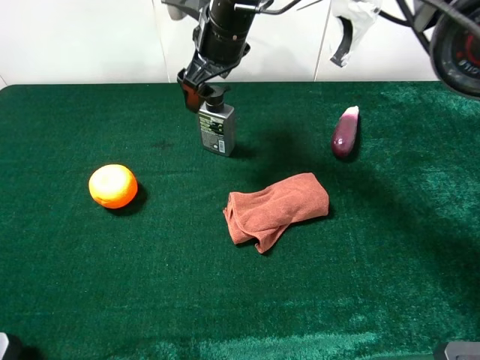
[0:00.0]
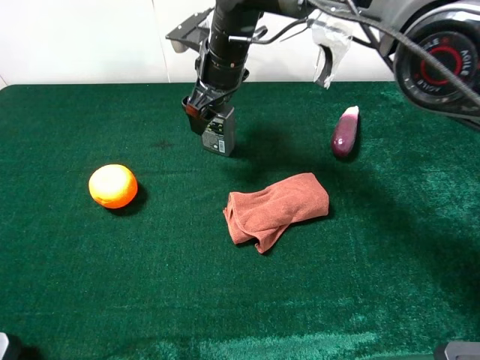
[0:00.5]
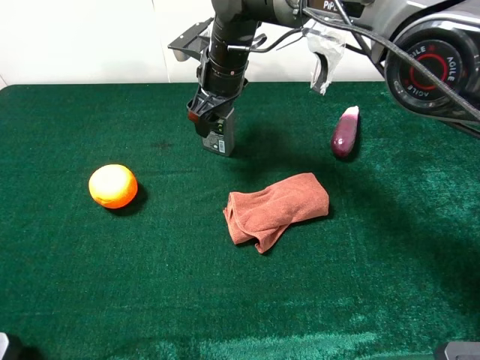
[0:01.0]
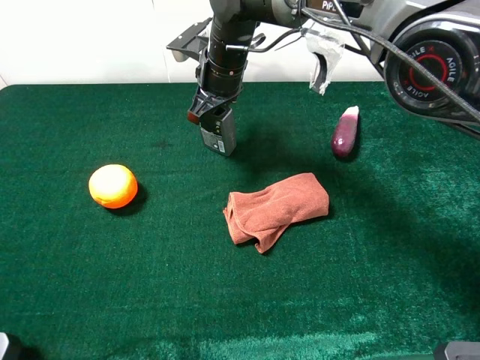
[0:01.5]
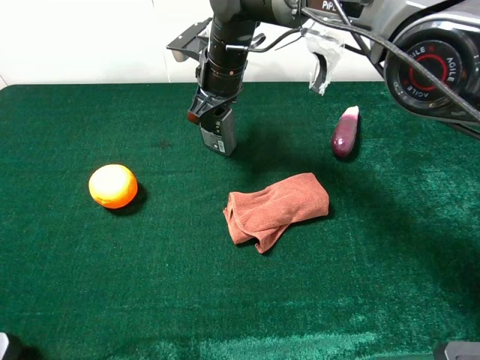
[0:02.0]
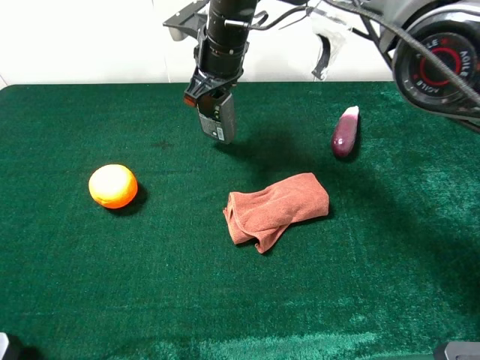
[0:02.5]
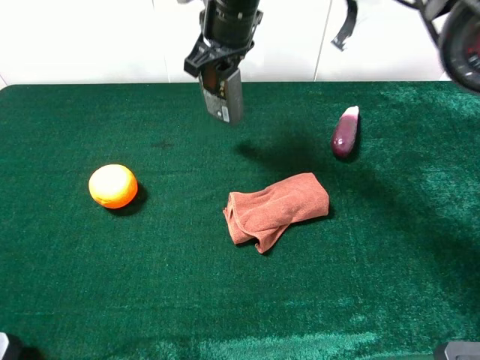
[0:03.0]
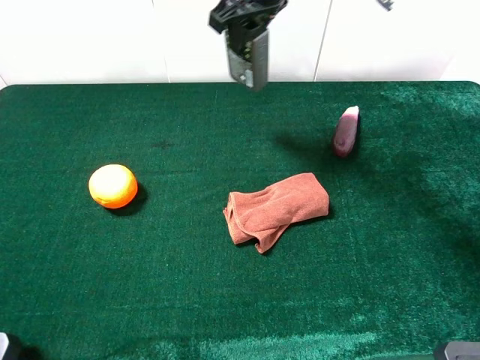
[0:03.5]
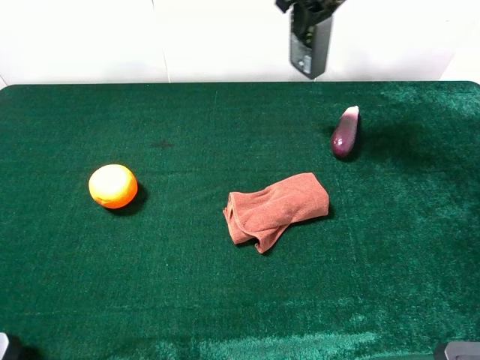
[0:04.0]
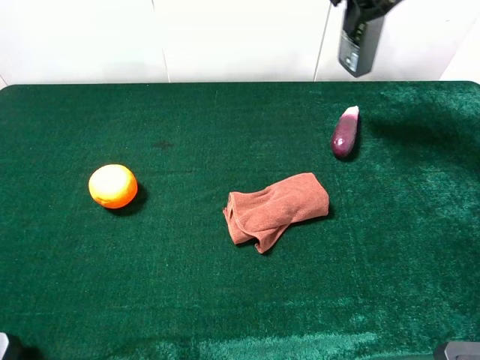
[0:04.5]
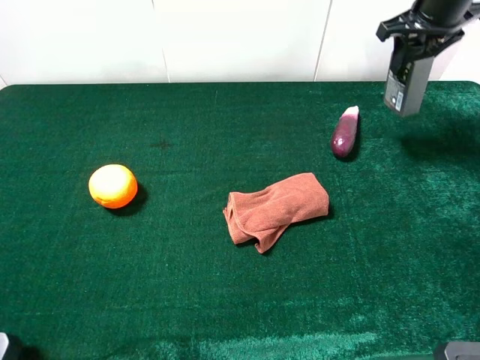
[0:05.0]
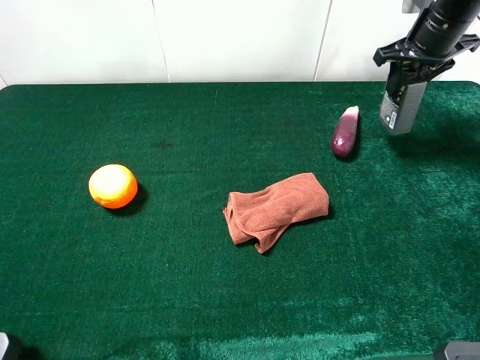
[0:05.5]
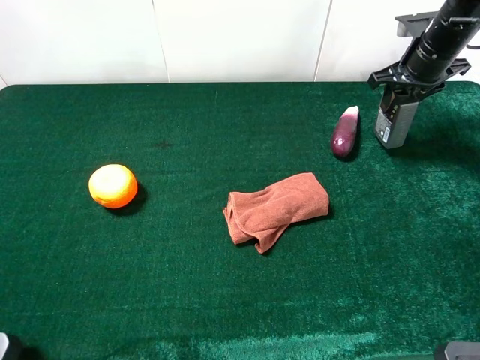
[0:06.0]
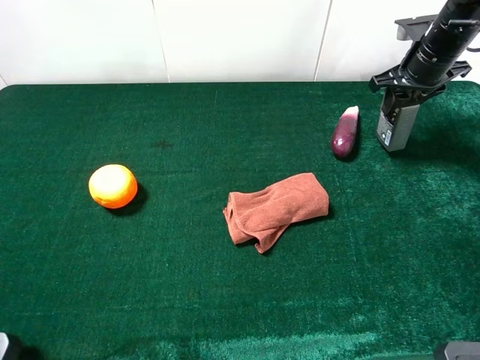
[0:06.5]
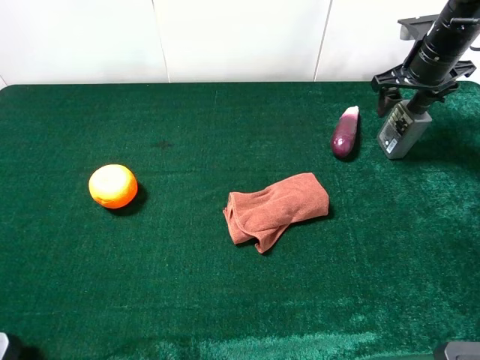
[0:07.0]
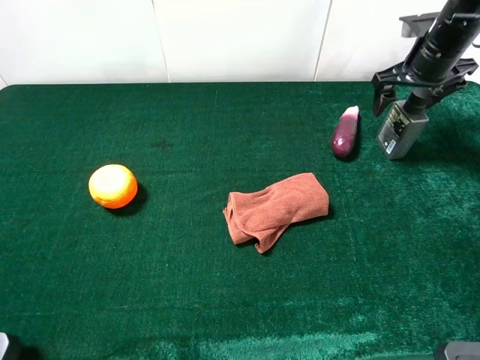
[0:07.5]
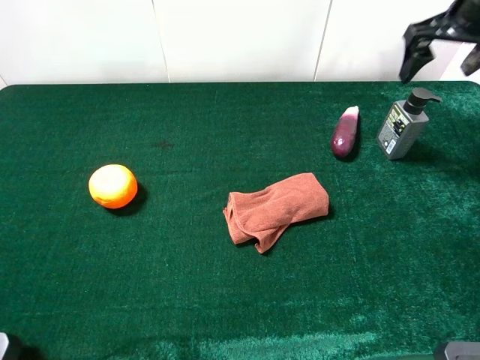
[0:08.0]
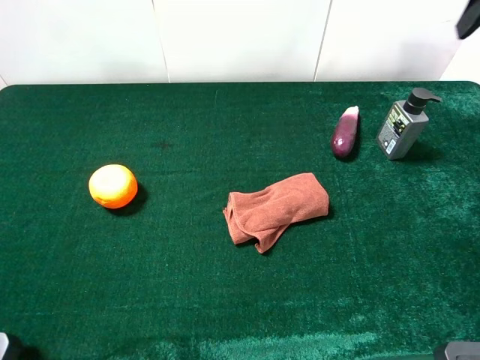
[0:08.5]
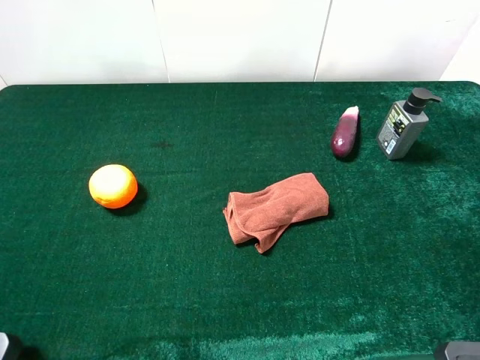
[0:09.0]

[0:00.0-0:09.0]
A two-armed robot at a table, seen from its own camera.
Task of the whole recording: the gripper move the object.
Step, 0:02.0 to 0:07.5: Place the hard facial cleanser on the table with the right gripper.
0:00.0 to 0:02.0: The right gripper travels downward by approximately 5 cm, and closes its fingers.
0:02.0 to 0:04.5: The right gripper heads to the right and upward, covering about 25 cm.
0:04.5 to 0:07.0: The right gripper goes about 15 cm downward and to the right, and opens up.
0:07.0 to 0:09.0: The right gripper goes about 35 cm backward and upward.

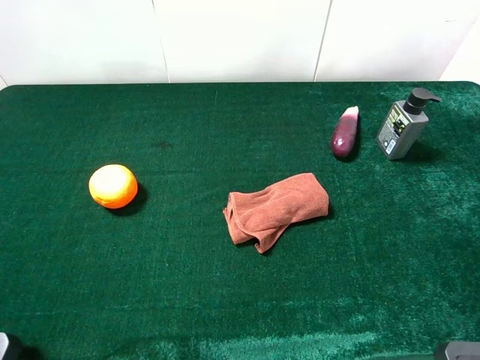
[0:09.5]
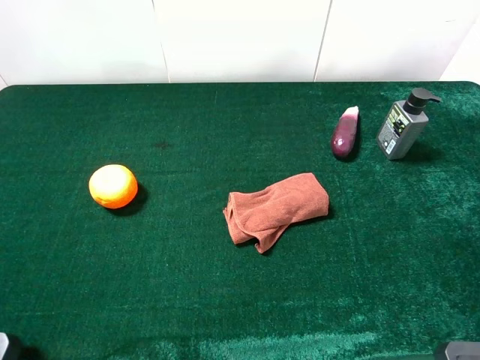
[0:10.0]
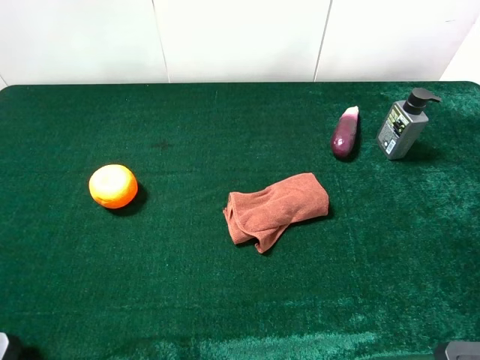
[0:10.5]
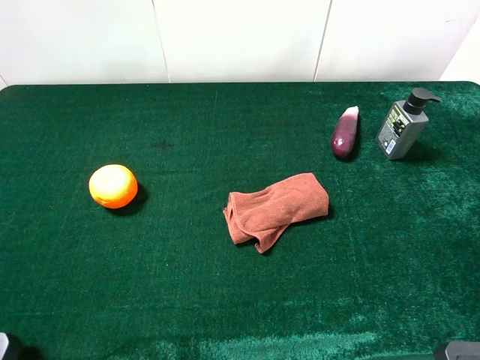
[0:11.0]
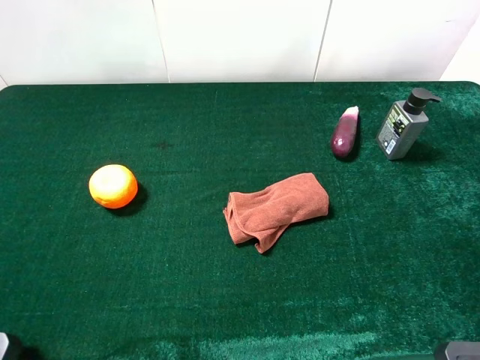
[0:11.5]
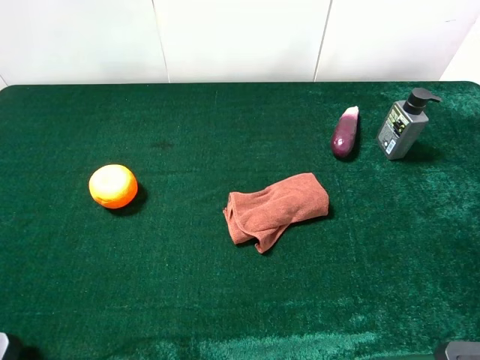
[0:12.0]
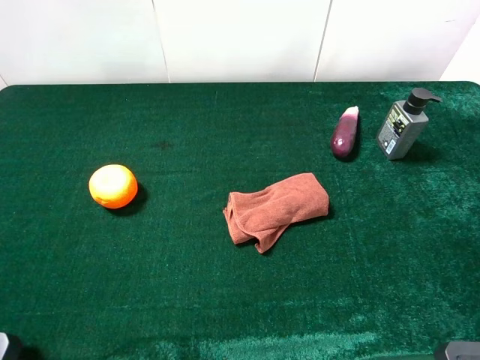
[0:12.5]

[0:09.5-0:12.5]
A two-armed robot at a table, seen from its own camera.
Task of the whole recording: the gripper move the object.
0:11.0 to 0:12.5: Both grippers stay put.

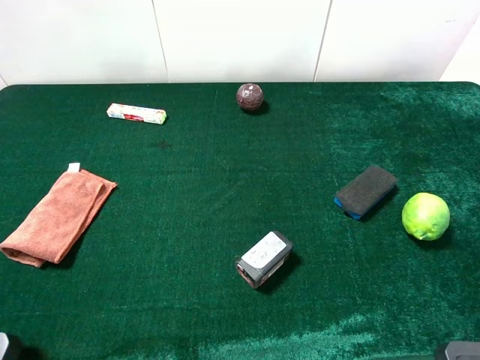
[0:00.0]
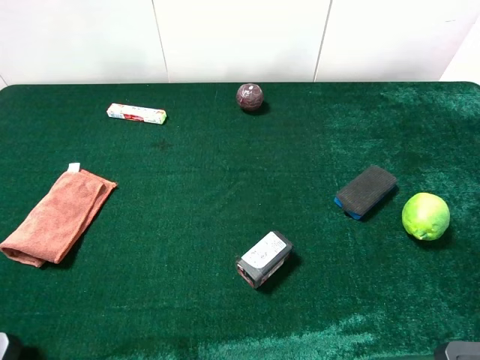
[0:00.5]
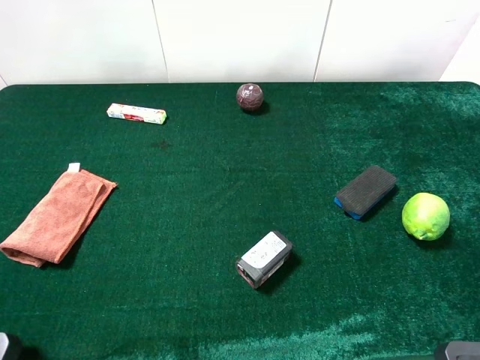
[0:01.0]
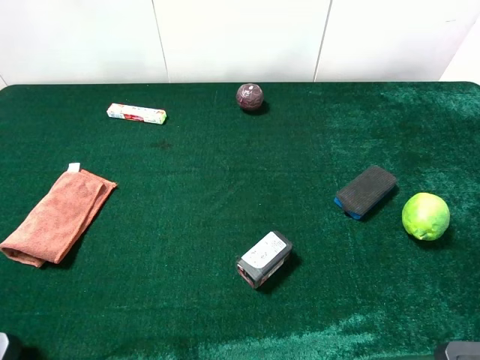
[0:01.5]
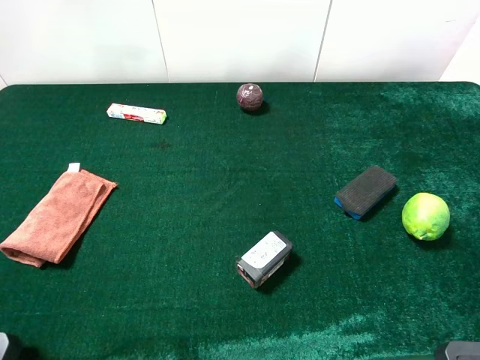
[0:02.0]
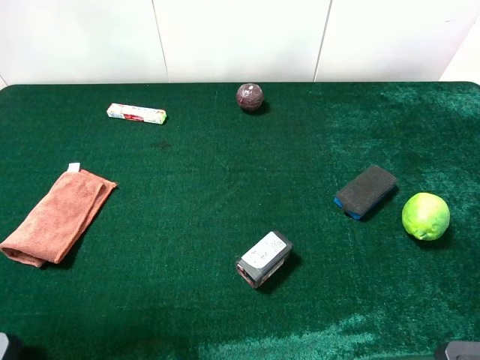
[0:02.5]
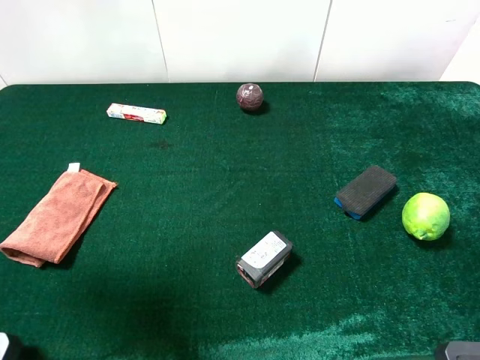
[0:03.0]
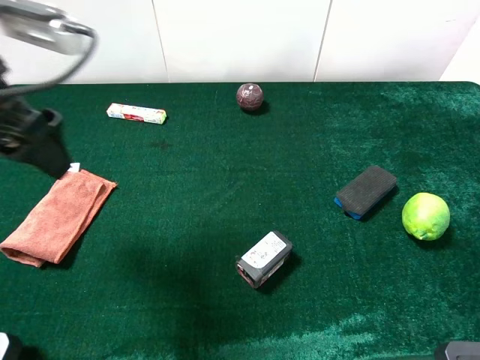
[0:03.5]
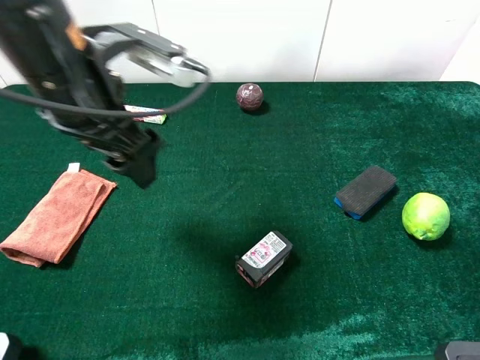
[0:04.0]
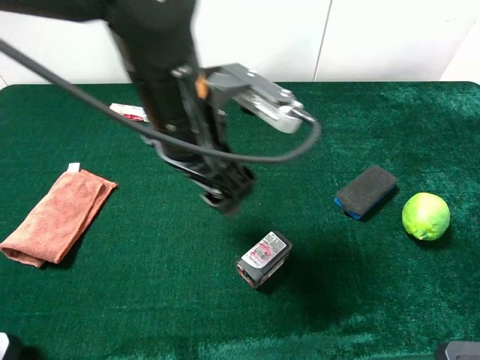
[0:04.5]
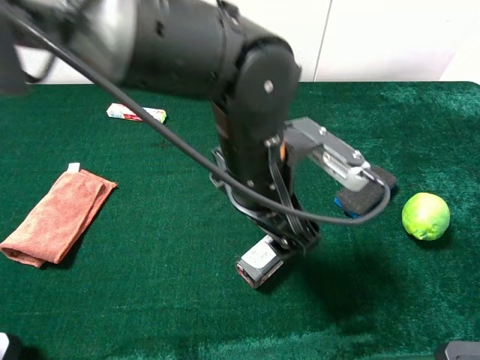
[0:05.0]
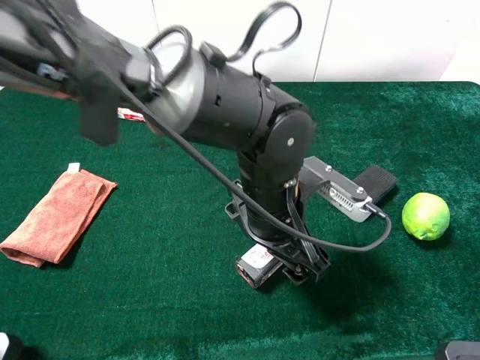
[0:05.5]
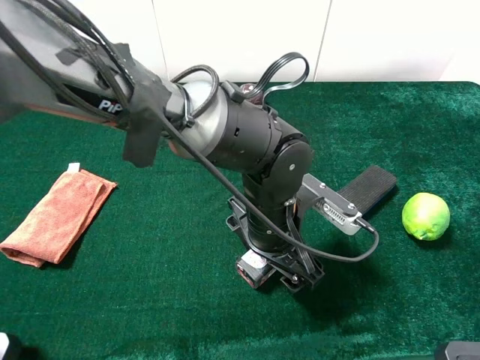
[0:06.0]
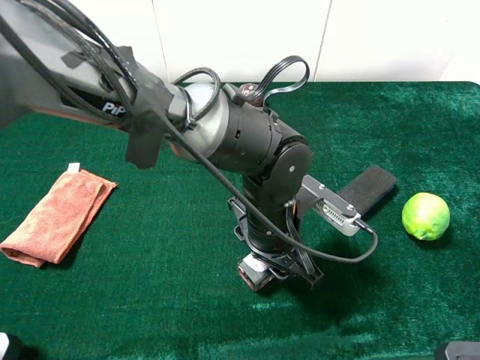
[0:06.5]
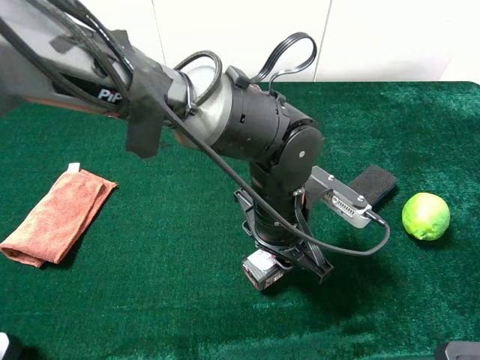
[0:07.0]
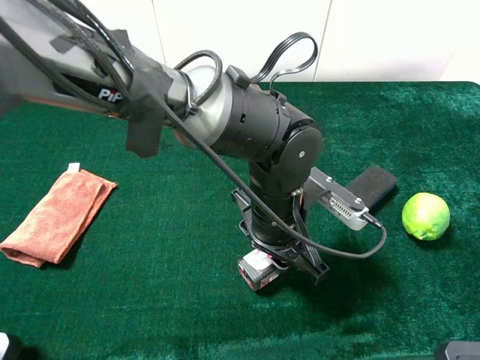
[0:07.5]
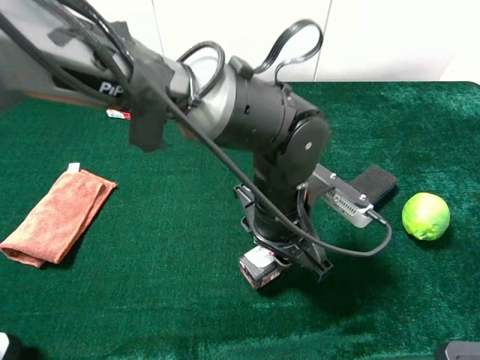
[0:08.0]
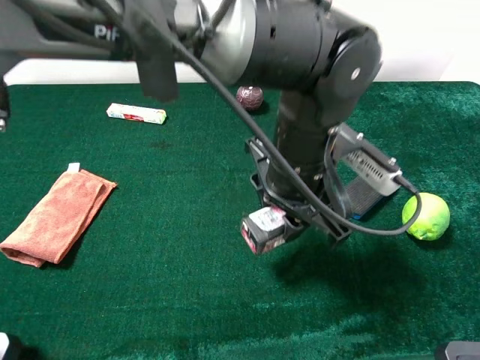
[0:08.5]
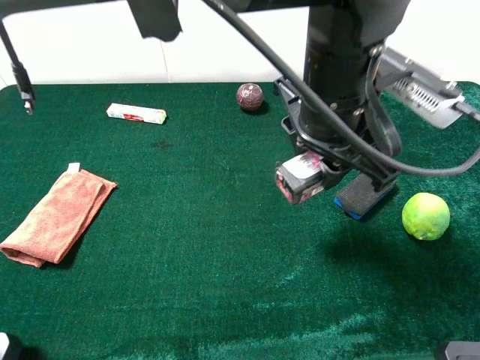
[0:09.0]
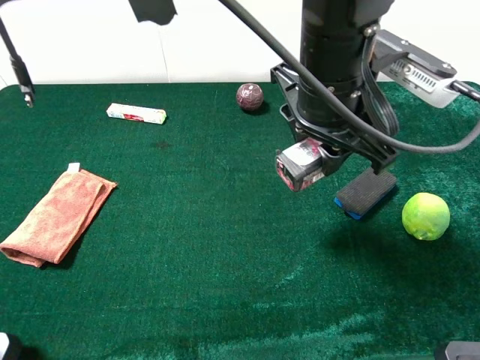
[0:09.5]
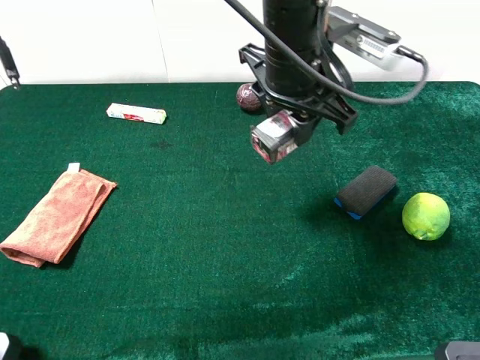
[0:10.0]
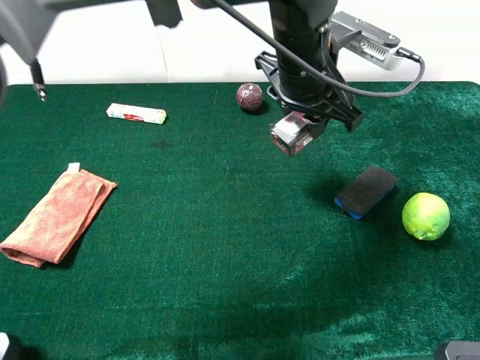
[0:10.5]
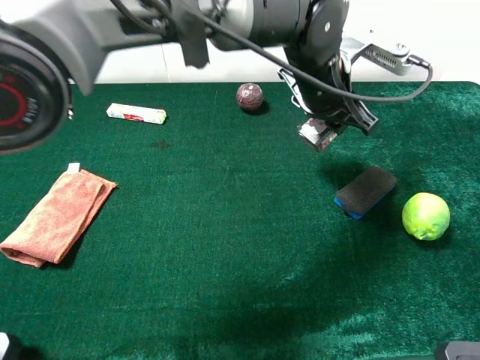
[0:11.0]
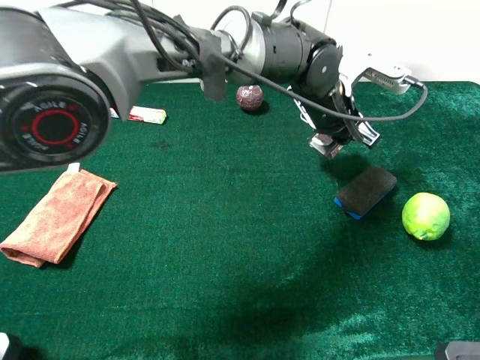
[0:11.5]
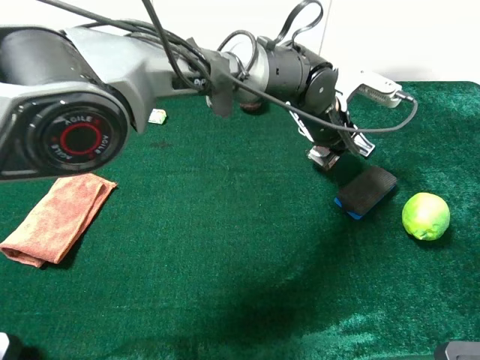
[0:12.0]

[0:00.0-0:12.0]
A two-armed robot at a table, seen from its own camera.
Task of the whole recording: the gripper move the object.
Step, 0:00.0 to 0:06.5: Grasp the square chewing gun with the left gripper.
0:02.0 to 0:04.0: The left gripper is displaced forward and to the right by some 25 cm.
0:04.0 to 0:06.0: The left gripper shifts some 25 cm to the right and downward.
0:06.0 to 0:08.0: The left gripper closes its fingers.
0:08.0 to 0:10.0: The left gripper heads upward and forward, covering roughly 15 cm.
0:10.0 to 0:12.0: The left gripper heads downward and to the right, covering some 15 cm.

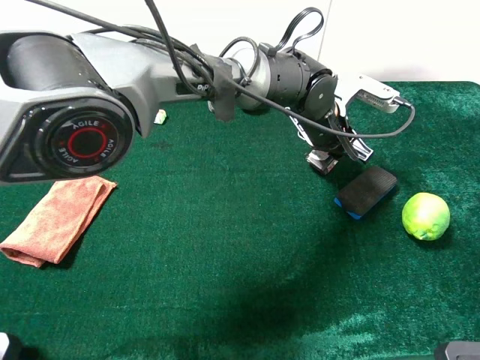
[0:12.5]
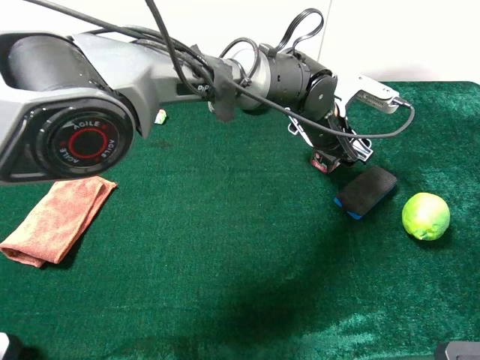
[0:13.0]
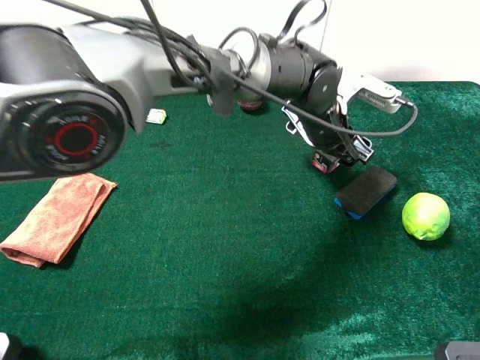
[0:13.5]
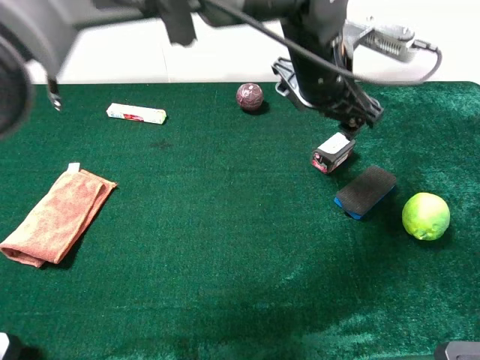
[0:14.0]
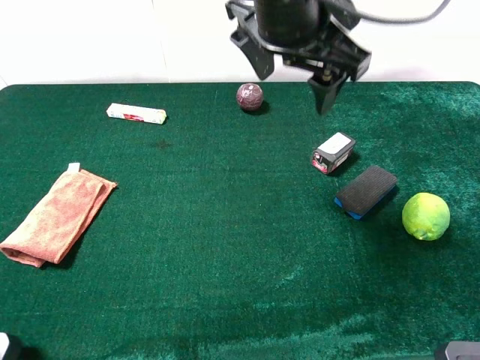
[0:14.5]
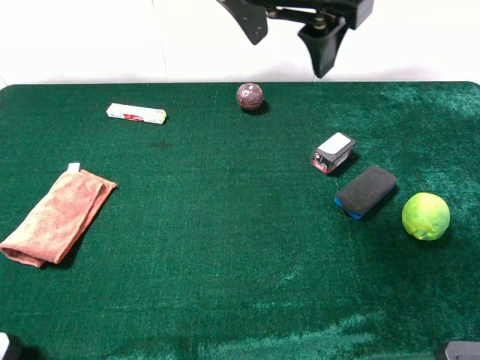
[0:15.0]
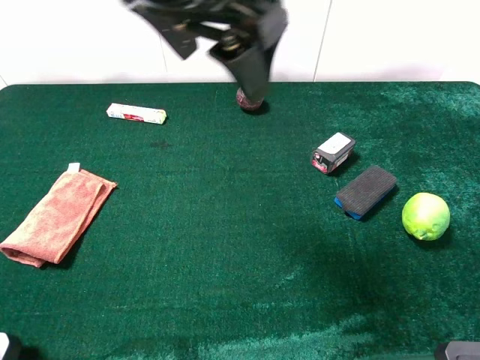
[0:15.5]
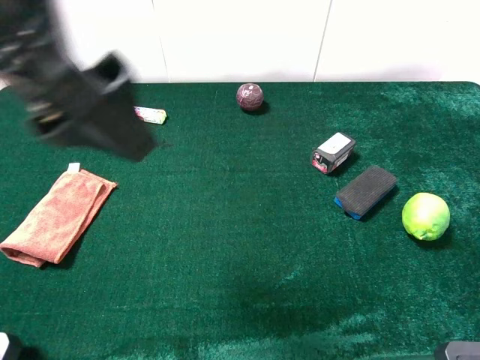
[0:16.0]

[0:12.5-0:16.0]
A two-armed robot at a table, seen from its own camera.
Task of the whole recording: the gripper move the object.
0:12.5 to 0:14.5: The left gripper shifts some 20 cm upward, and opens.
0:14.5 to 0:16.0: The left gripper moves to the left and backward, roughly 25 cm.
